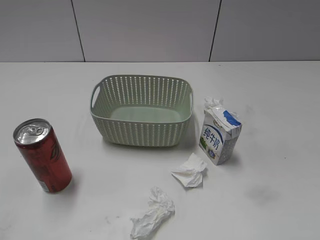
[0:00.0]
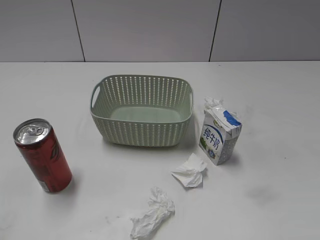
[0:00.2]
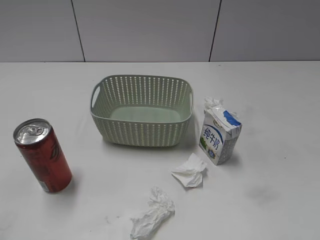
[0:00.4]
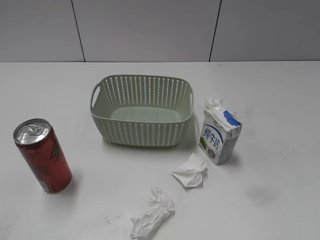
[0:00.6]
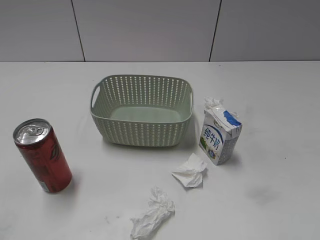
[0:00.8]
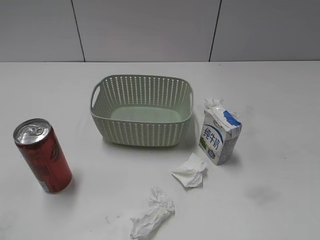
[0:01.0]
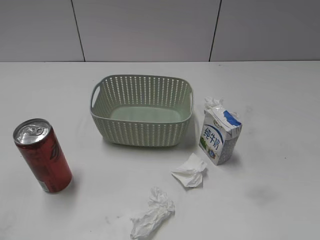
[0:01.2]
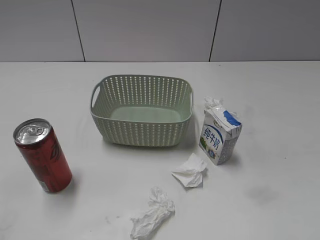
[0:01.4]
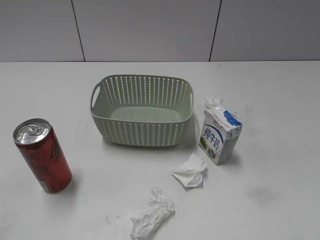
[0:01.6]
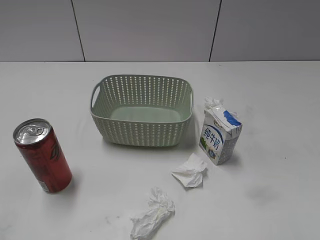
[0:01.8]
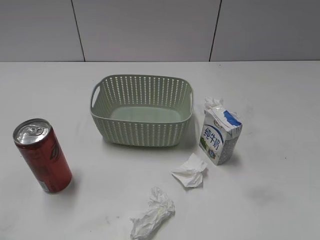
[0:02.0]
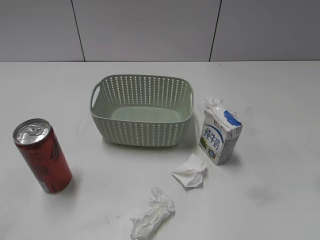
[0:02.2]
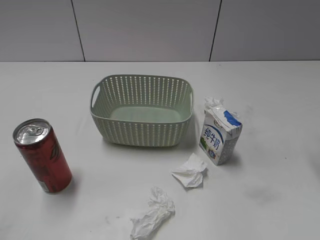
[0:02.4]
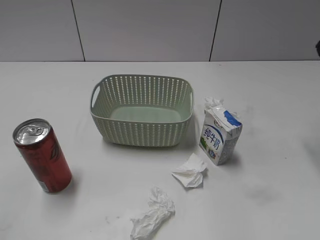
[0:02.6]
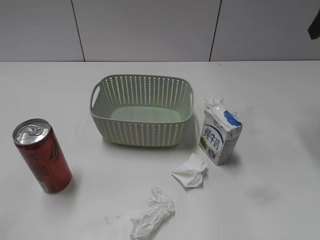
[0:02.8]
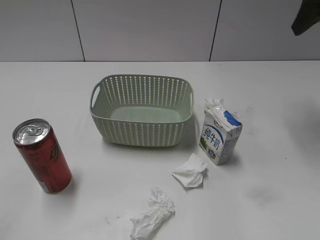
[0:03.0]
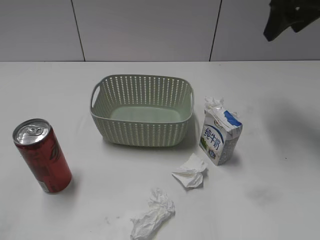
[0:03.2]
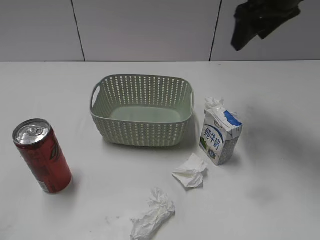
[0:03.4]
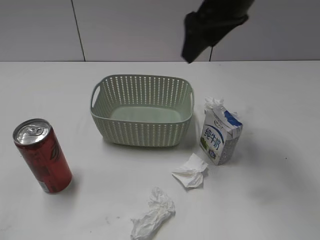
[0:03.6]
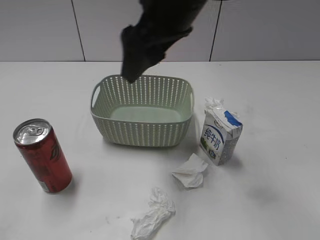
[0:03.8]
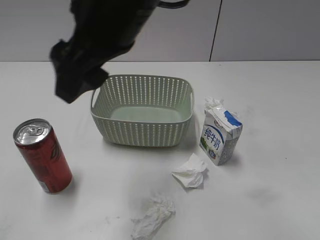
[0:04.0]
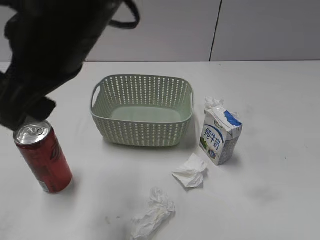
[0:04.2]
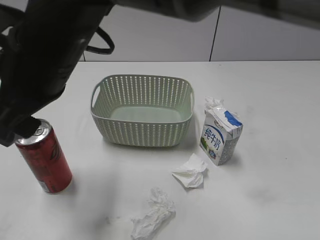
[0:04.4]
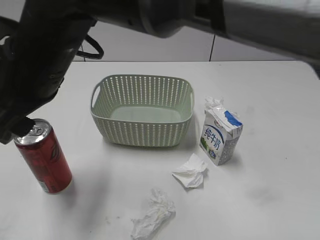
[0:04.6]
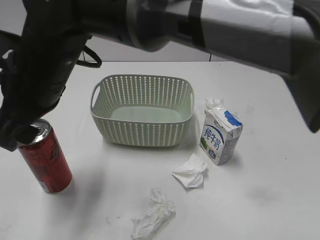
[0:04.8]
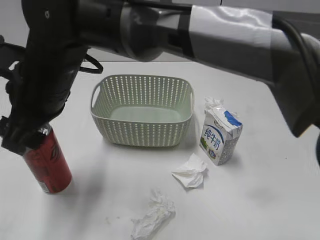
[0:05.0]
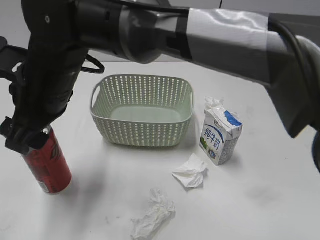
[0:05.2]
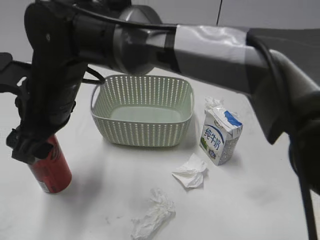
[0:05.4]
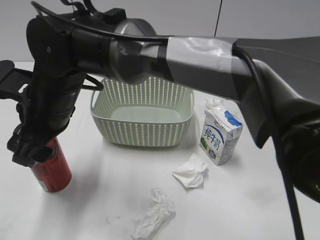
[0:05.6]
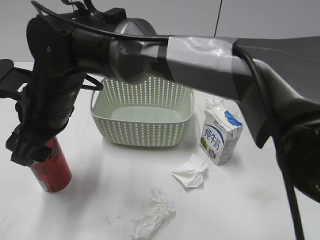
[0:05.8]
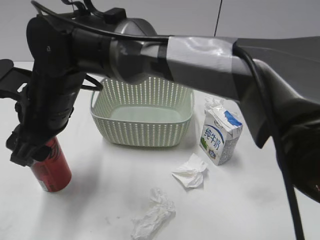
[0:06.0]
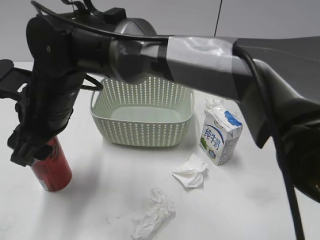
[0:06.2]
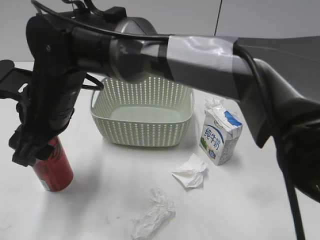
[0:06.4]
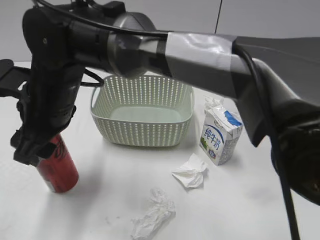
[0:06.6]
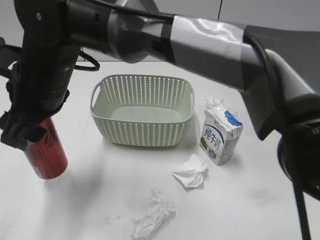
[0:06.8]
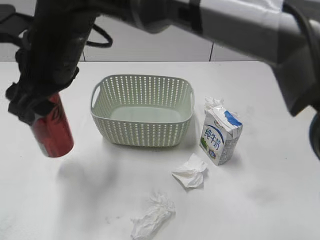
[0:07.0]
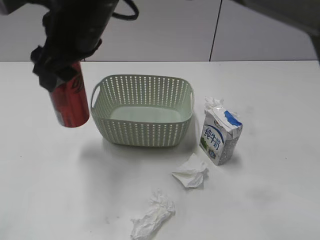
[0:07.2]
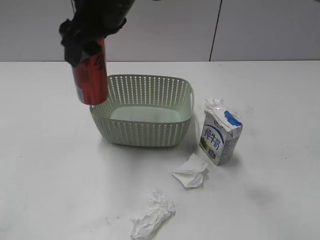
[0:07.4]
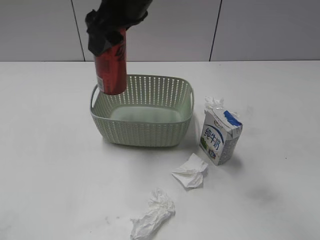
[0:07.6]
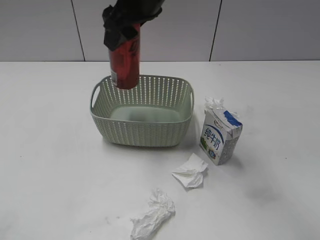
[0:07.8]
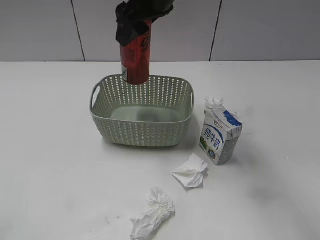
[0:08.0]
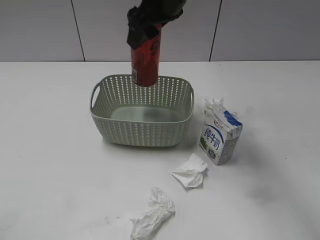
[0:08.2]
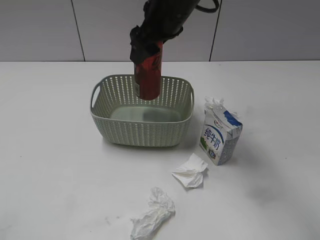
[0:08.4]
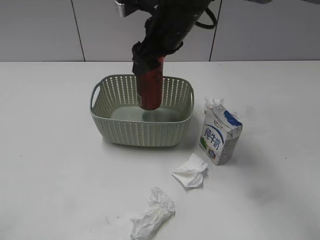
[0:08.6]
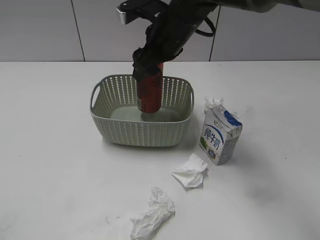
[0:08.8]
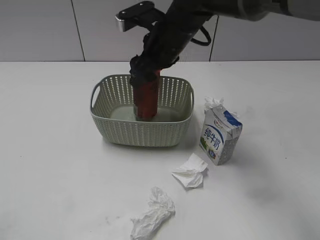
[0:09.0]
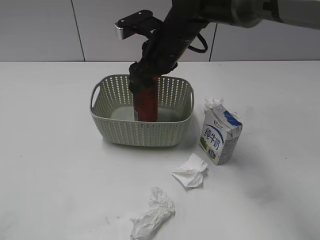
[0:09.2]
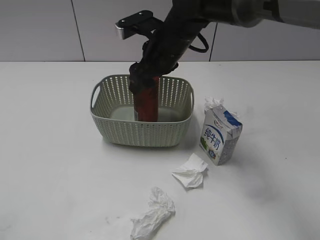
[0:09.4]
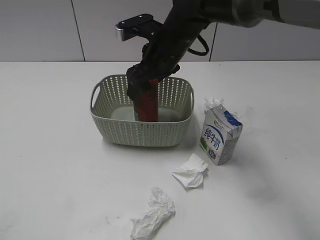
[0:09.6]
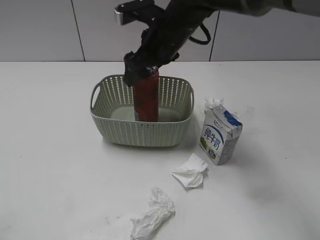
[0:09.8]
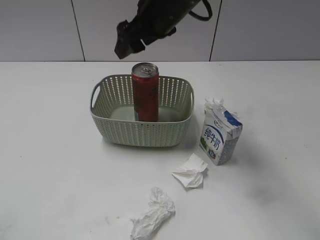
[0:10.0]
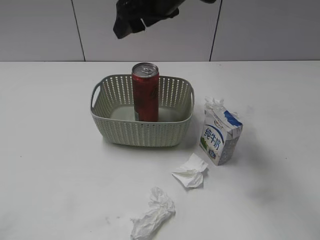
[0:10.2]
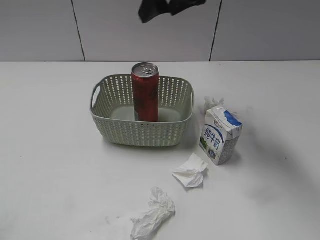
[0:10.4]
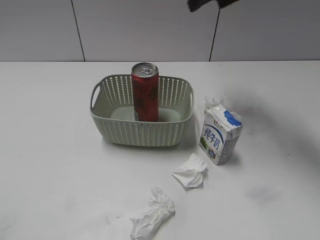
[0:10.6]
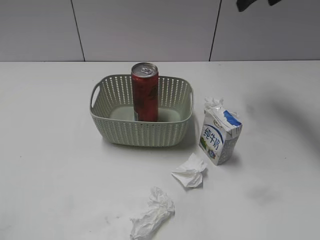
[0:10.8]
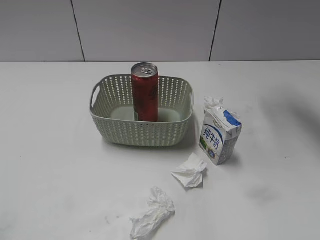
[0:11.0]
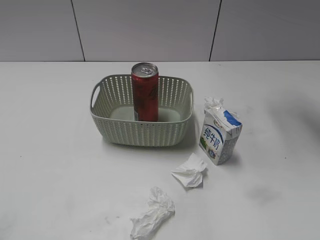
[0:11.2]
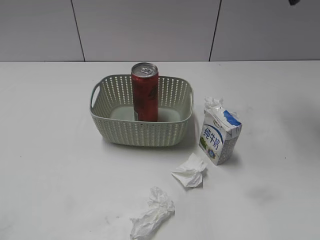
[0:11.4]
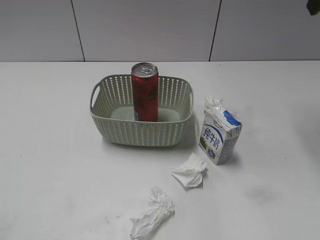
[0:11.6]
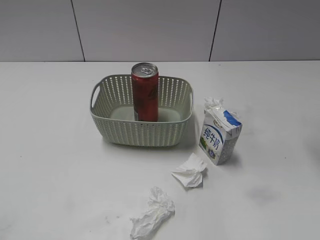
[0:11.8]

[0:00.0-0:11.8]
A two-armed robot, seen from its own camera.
Step, 0:02.6 to 0:06.4: Grasp the cola can with right gripper.
Step, 0:06.6 to 0:10.0: Place the cola can in the basket with right gripper.
0:01.4 to 0:03.0: The right gripper travels forward by roughly 35 cm.
0:03.0 to 0:04.4: The right gripper moves to the left and backward, approximately 40 cm, and opens.
0:04.4 to 0:06.0: The right gripper moves downward, roughly 10 cm.
0:06.0 to 0:07.4: The right gripper shifts about 15 cm upward, to the right and forward, and closes.
0:07.4 to 0:08.8: The right gripper is displaced to the right, downward and forward by some 15 cm.
0:08.8 to 0:10.4: The right gripper is displaced upward by about 10 cm, and opens its fingers.
0:10.4 to 0:11.8: The right gripper shifts roughly 25 cm to the right and backward, and closes up.
